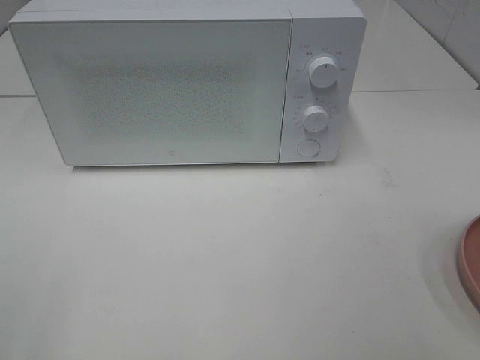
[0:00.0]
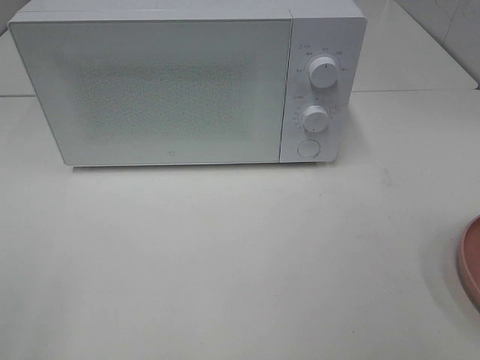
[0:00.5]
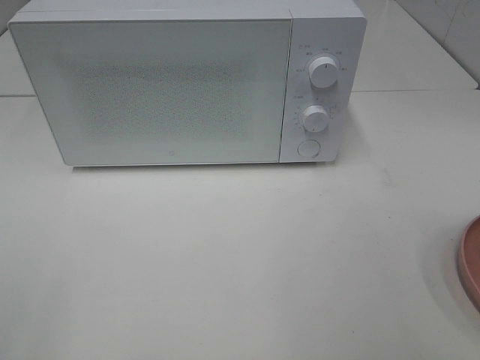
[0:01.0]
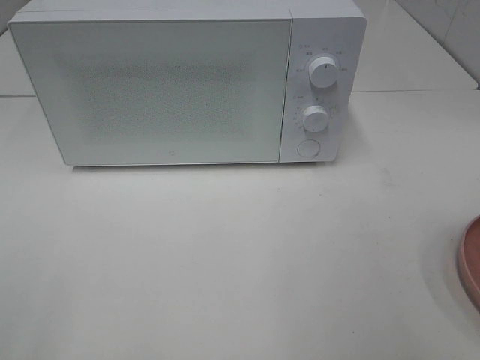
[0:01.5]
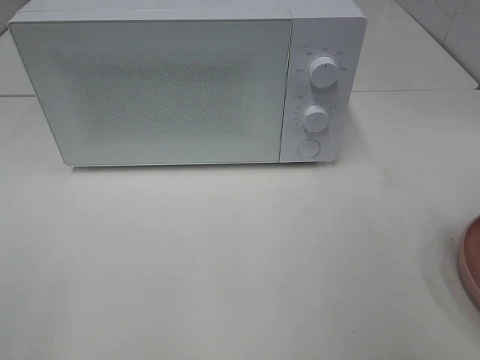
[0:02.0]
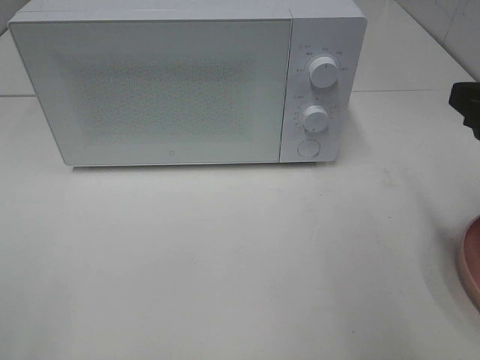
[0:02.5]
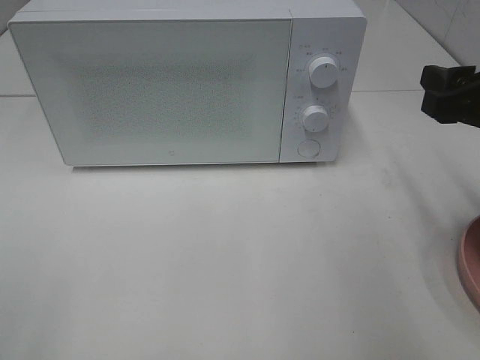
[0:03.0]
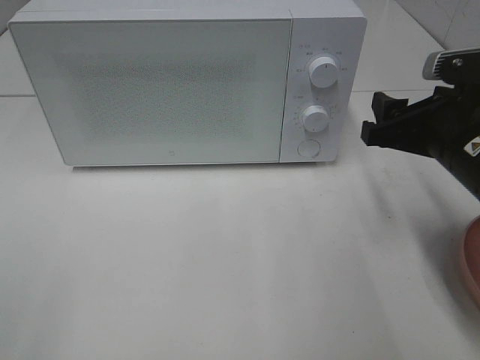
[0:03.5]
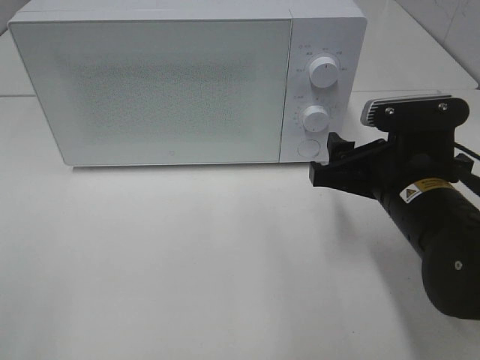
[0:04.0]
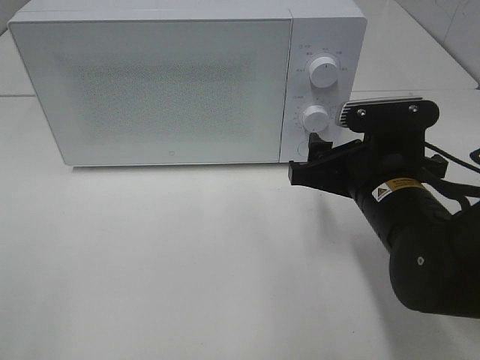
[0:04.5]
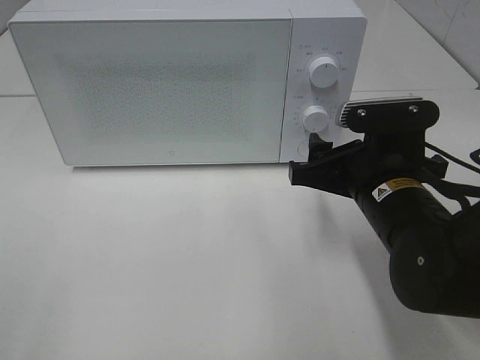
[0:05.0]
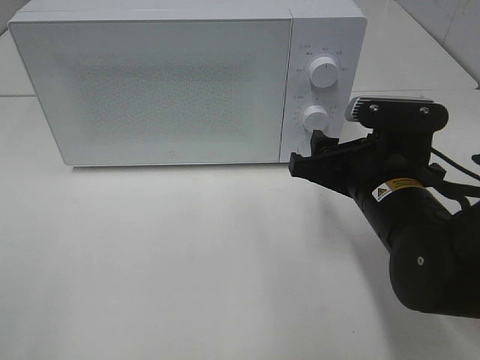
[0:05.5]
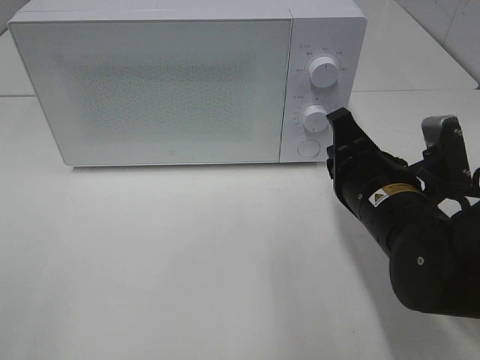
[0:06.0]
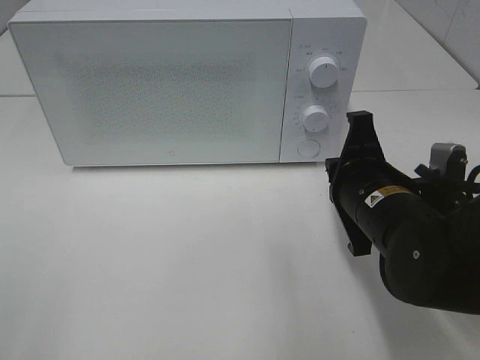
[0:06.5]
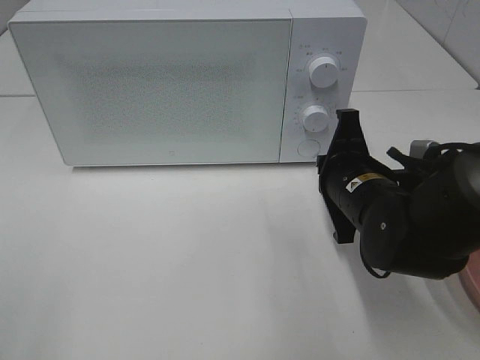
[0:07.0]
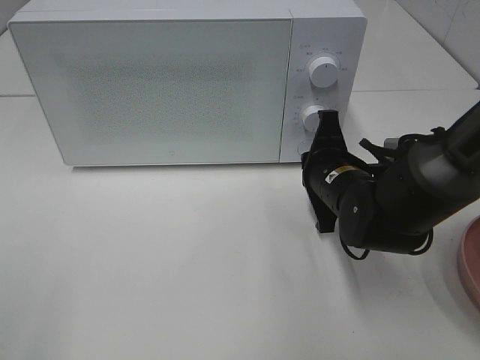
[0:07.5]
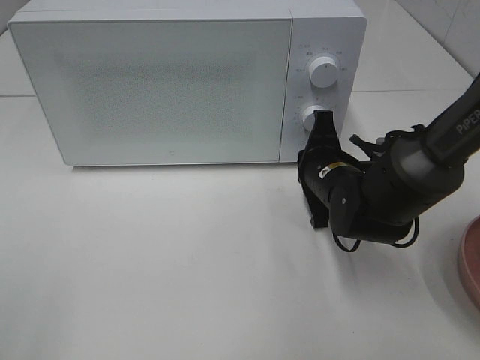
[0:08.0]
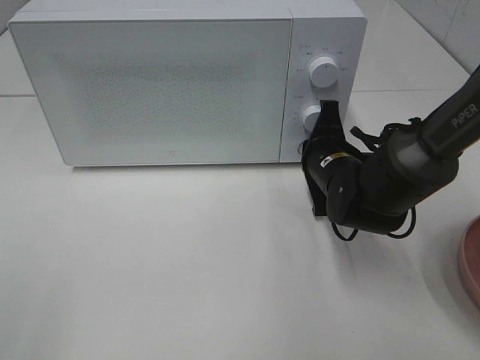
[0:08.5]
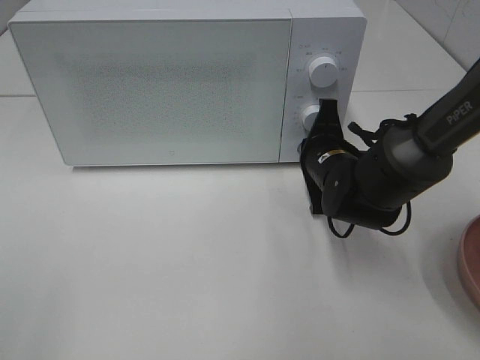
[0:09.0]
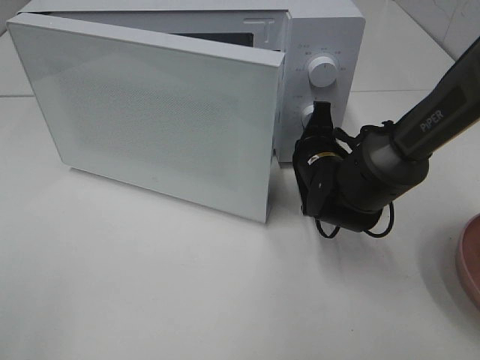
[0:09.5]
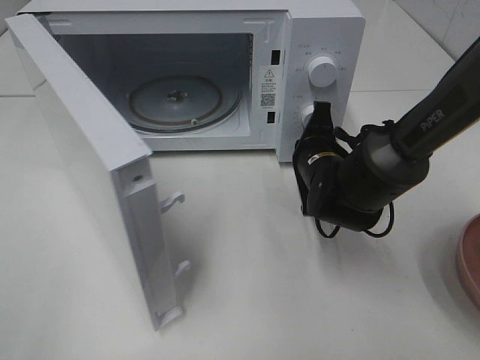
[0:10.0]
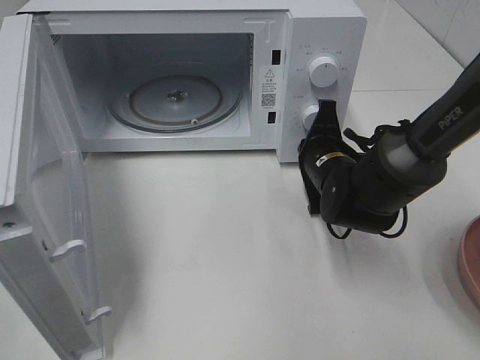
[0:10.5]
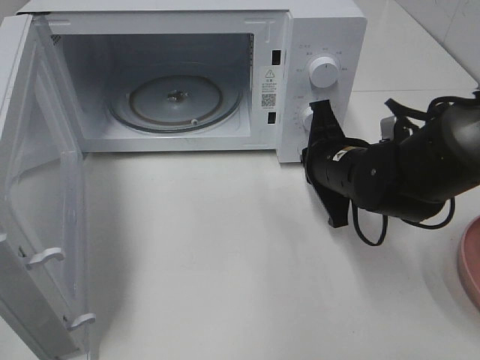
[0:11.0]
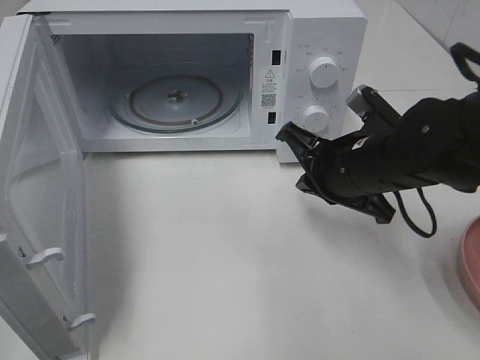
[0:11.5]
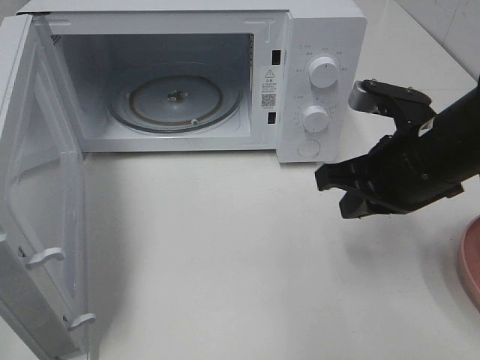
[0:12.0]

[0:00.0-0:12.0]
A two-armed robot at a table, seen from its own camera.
Task of the whole recording: Heat the burger.
Step, 0:00.0 to 0:10.5: Right hand: press the switch.
0:02.0 to 0:04.0: The right gripper is displaced downward, forward and to the left by approximately 20 cm.
0:04.0 to 0:06.0: The right gripper closes up.
0:06.0 to 0:08.0: The right gripper travels forward and downward by some 10 cm.
0:10.0 to 0:12.0: The right gripper is displaced upward, backward and to the right by approximately 15 cm.

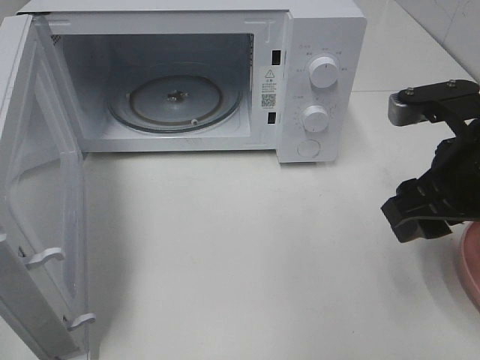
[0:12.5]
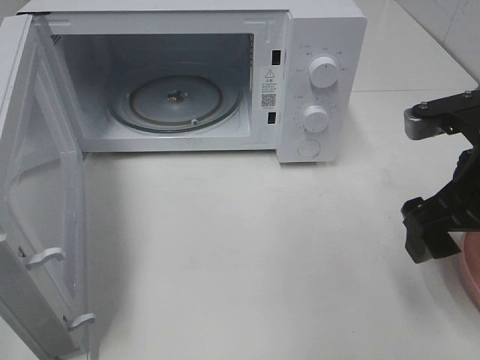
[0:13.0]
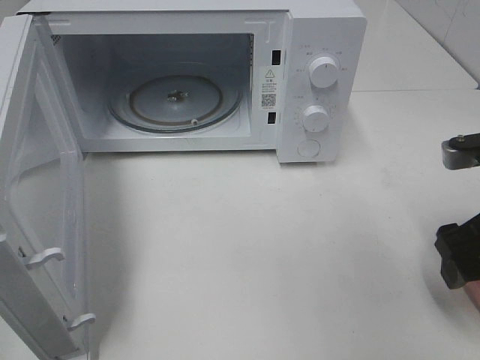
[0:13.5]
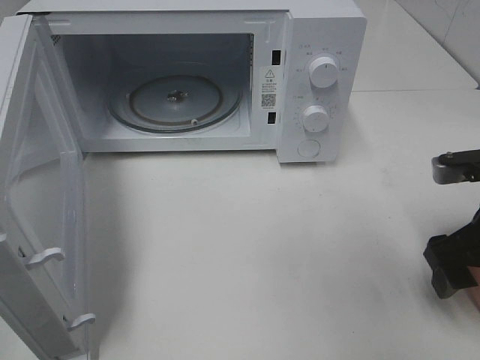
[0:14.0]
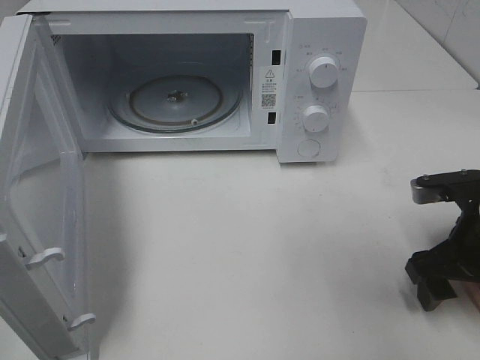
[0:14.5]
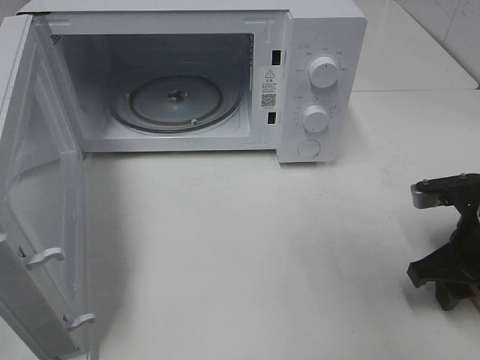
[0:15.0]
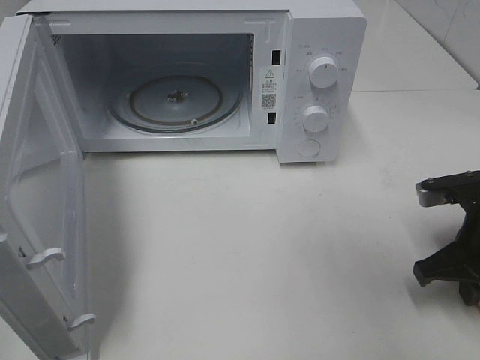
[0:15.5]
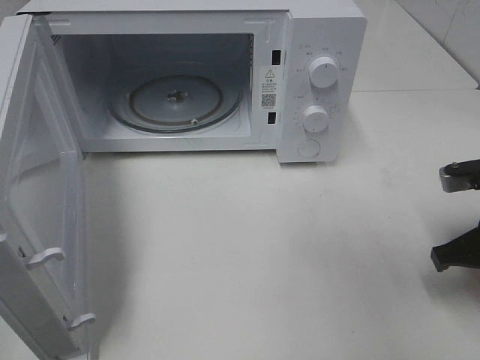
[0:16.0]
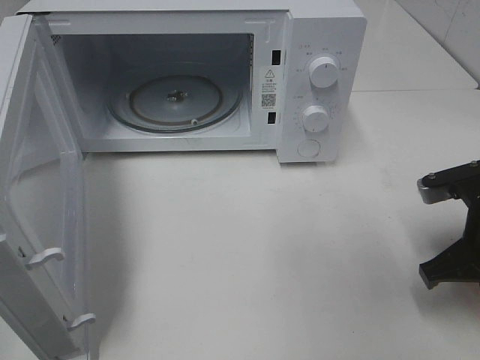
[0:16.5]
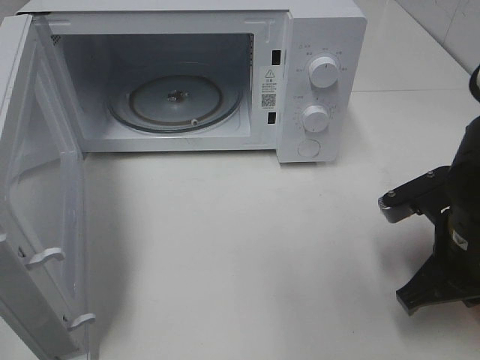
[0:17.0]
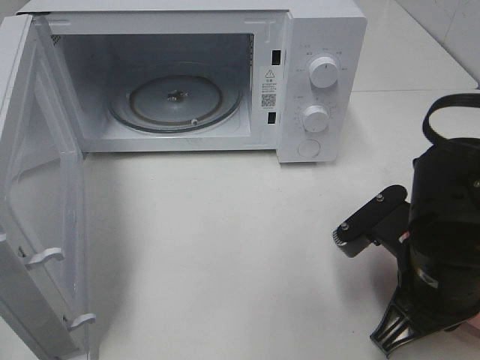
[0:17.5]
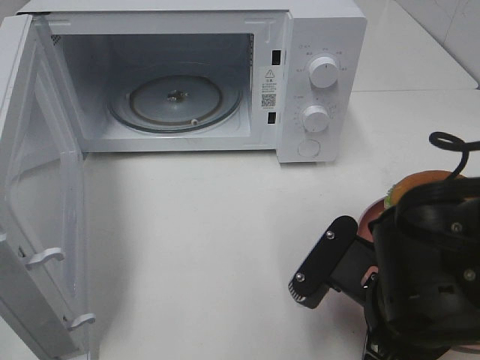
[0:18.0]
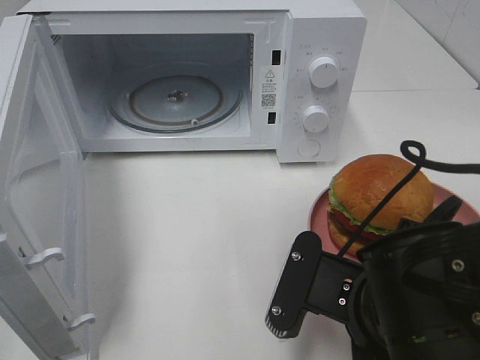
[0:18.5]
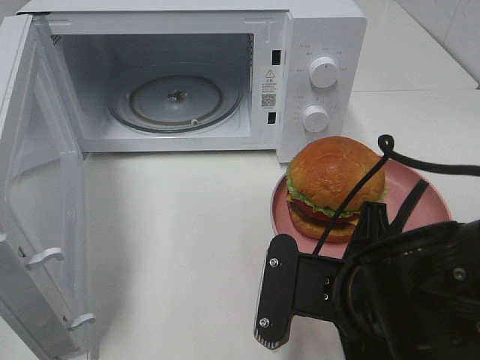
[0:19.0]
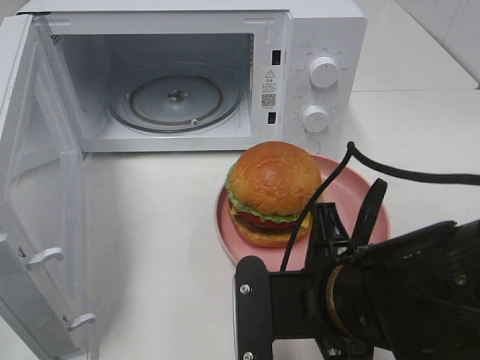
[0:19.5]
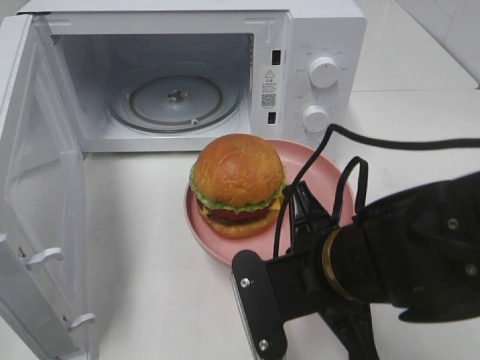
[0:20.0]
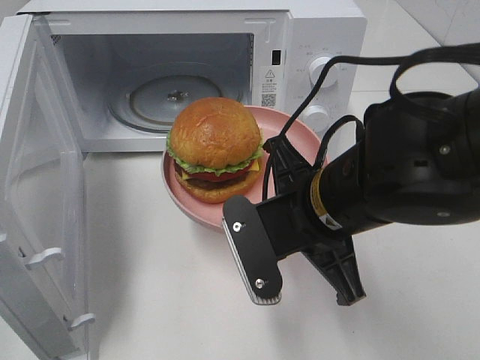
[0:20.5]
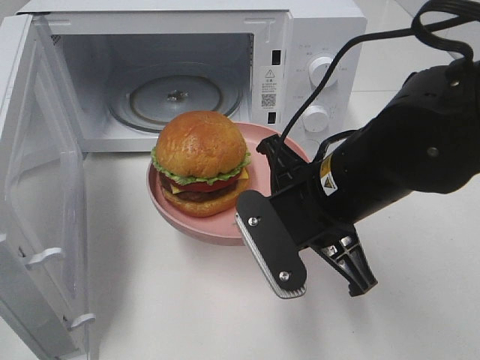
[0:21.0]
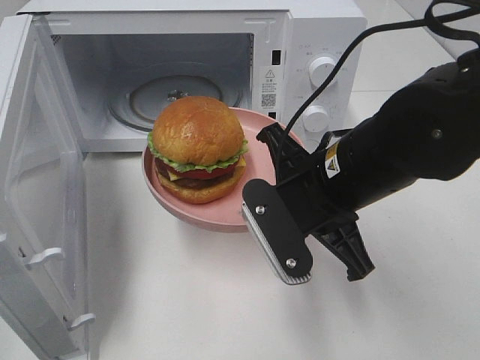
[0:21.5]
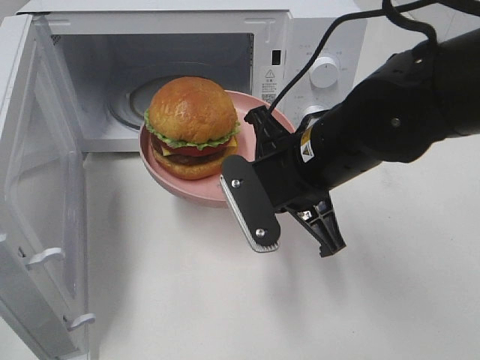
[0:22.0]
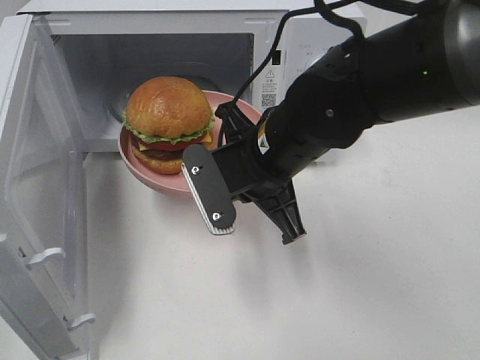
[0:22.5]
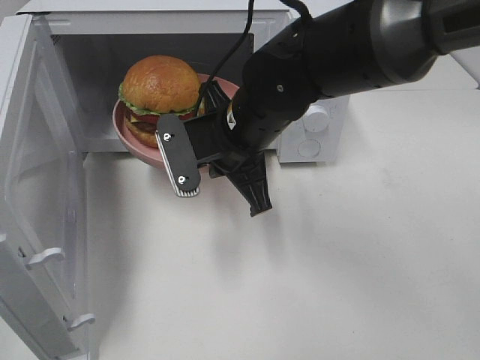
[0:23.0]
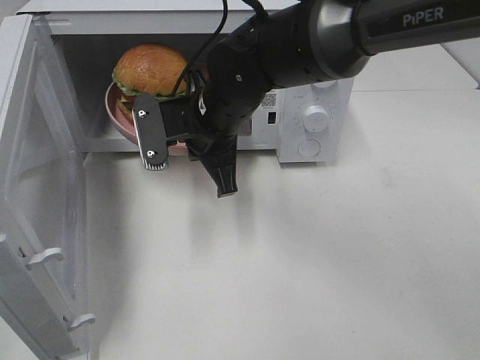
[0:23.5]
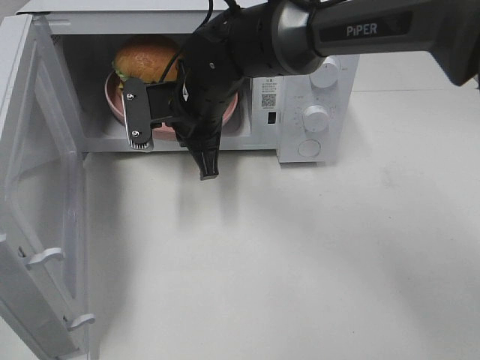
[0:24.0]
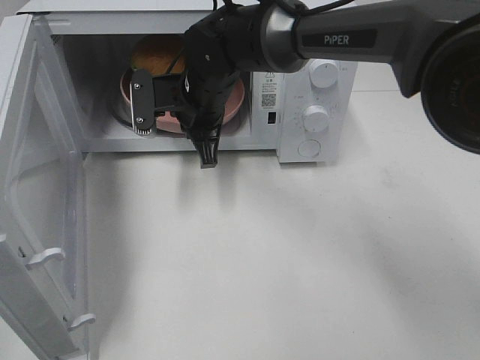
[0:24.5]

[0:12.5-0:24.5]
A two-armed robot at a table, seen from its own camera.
Task of the whole recording: Heat the burger.
Step, 0:12.5 to 0:15.5: Right hand: grab the plate with the hamburger.
0:12.5 to 0:14.5: The right gripper travels downward and to the right by some 10 cm.
0:14.5 to 0:16.5: The right gripper closes up.
0:16.5 to 0:18.5: The right gripper goes roughly 15 cm to the left and backward.
0:18.5 to 0:20.5: The right gripper goes roughly 5 cm forward.
0:20.5 to 0:22.5: The right gripper is displaced forward by roughly 10 cm.
0:22.5 to 0:24.5: The right gripper moves forward and to the left, about 15 cm.

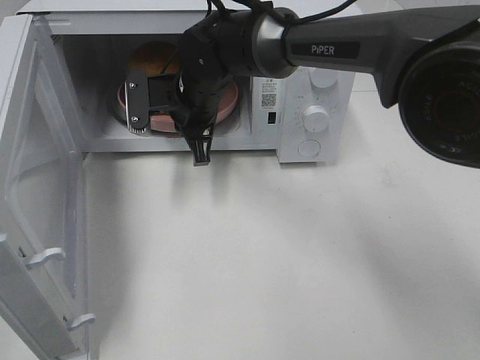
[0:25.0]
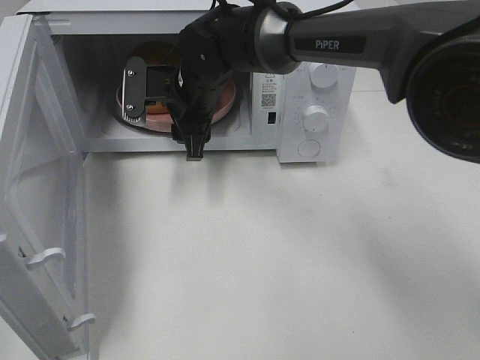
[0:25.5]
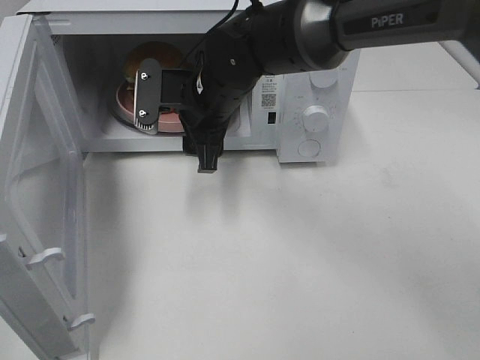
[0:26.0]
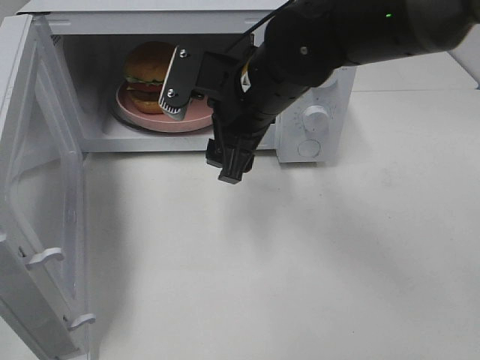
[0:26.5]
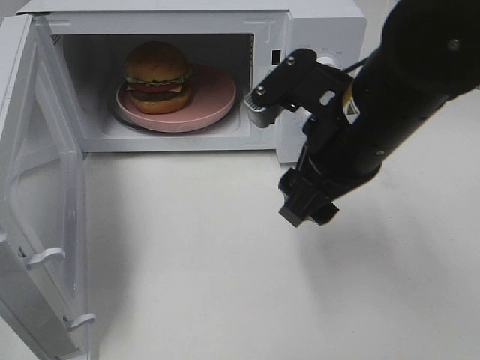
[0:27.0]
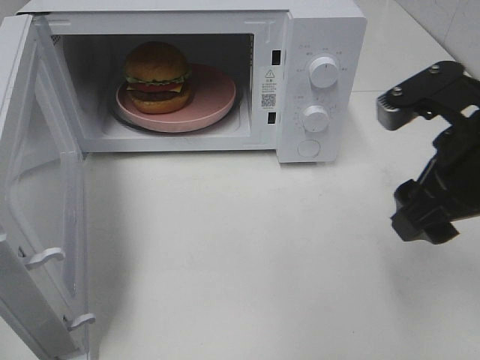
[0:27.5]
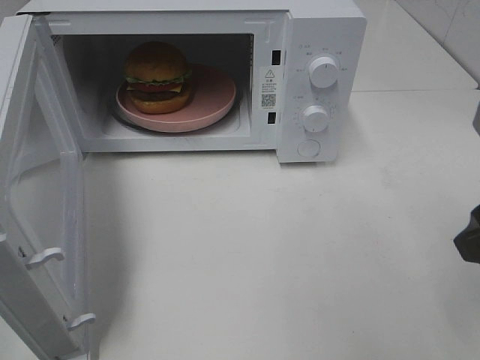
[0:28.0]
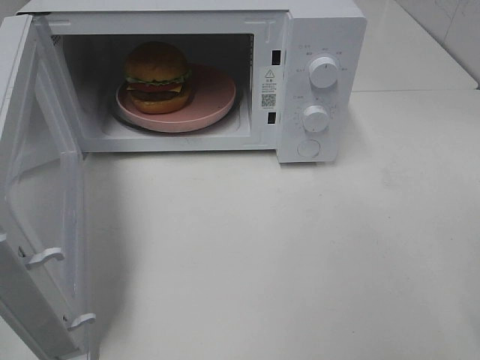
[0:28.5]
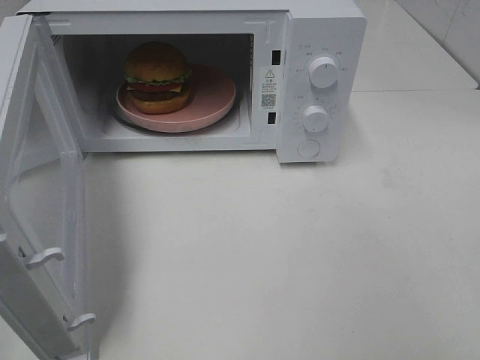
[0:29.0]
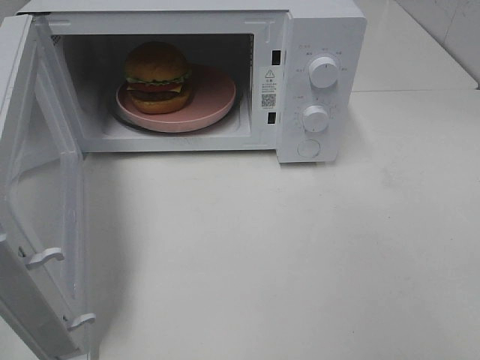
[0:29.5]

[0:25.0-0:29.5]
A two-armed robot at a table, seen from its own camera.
Task of the whole recording: Heat the burger.
0:25.0 to 0:27.0: The right gripper is displaced backward, to the right and upward by about 25 cm, and opens.
0:27.0 to 0:29.5: The right gripper shifts approximately 30 cm backward and to the right.
